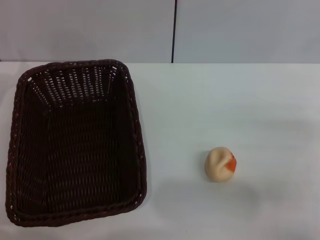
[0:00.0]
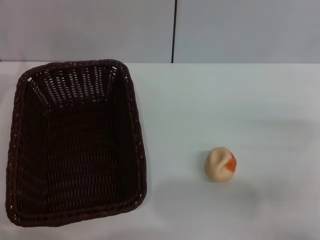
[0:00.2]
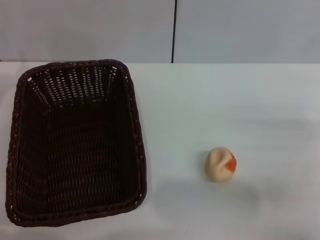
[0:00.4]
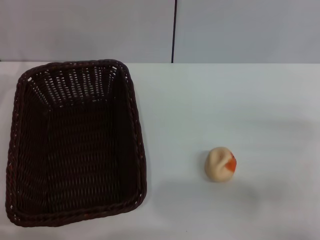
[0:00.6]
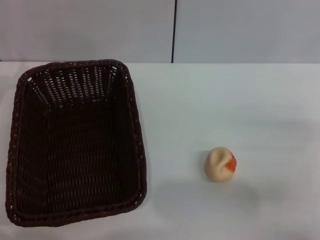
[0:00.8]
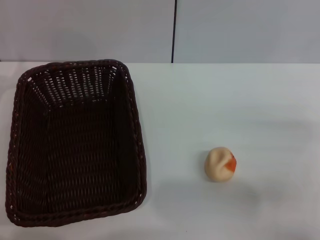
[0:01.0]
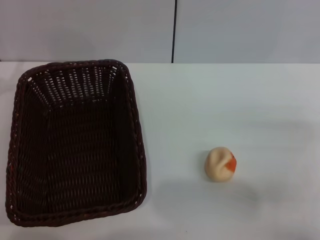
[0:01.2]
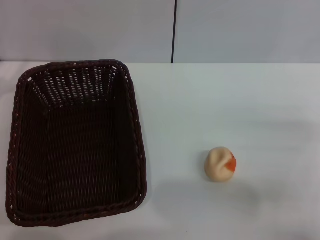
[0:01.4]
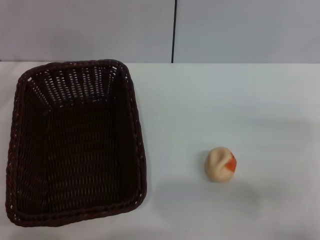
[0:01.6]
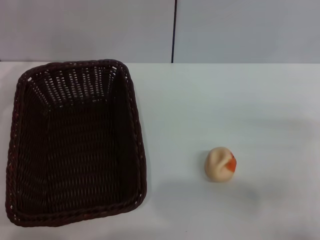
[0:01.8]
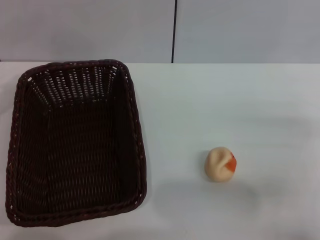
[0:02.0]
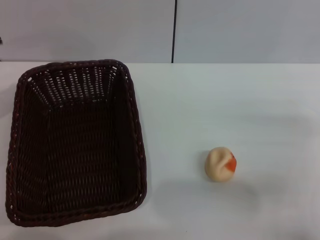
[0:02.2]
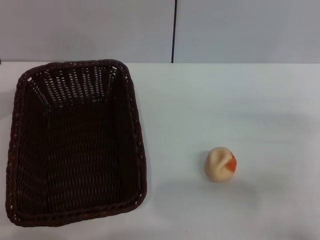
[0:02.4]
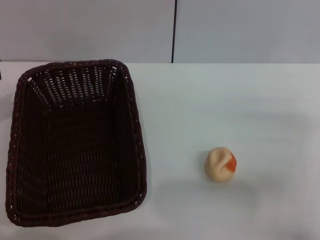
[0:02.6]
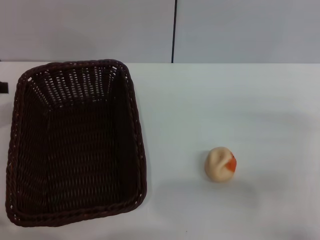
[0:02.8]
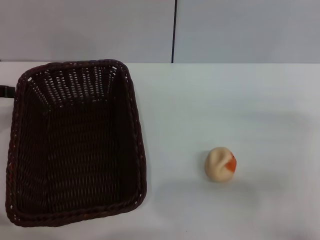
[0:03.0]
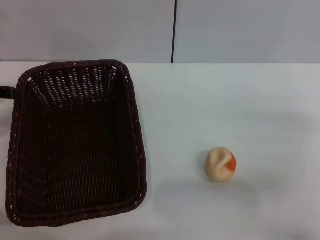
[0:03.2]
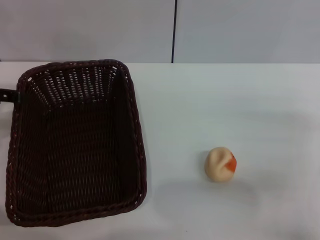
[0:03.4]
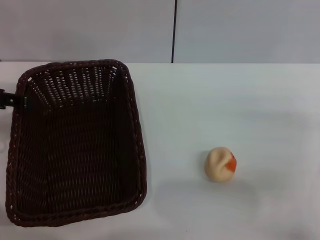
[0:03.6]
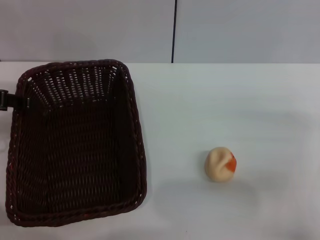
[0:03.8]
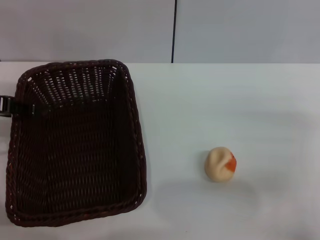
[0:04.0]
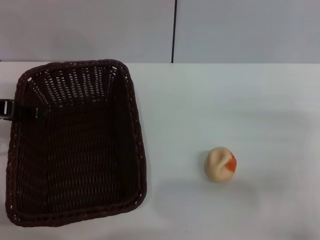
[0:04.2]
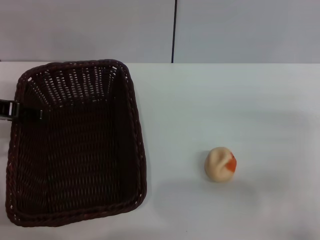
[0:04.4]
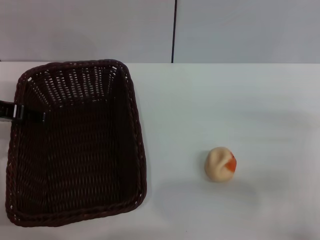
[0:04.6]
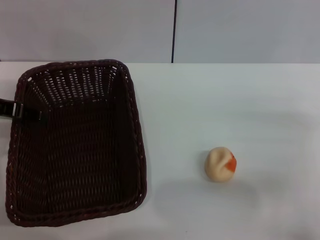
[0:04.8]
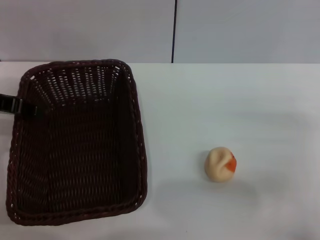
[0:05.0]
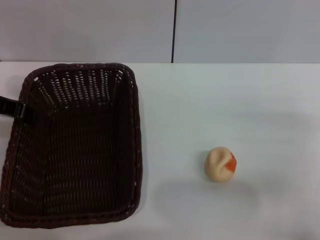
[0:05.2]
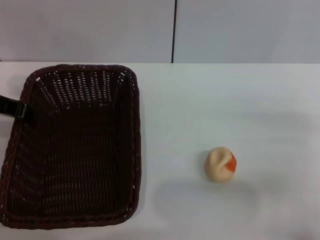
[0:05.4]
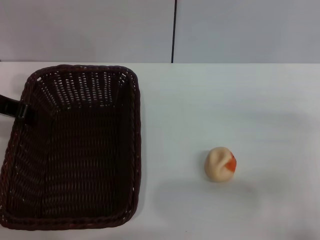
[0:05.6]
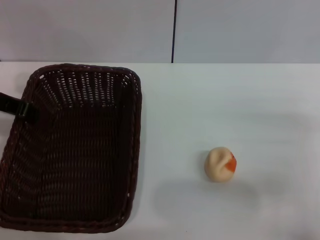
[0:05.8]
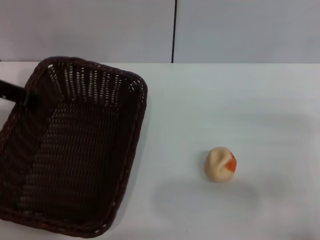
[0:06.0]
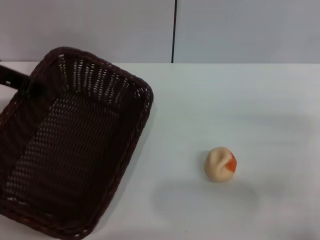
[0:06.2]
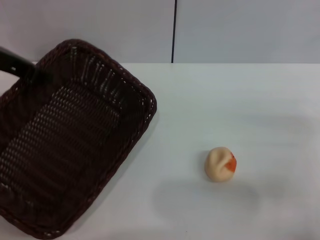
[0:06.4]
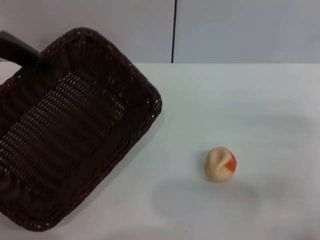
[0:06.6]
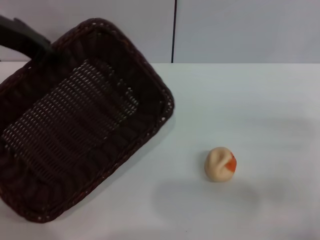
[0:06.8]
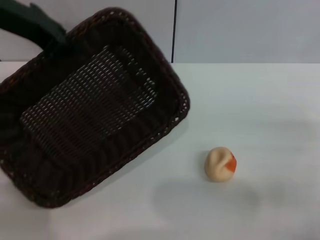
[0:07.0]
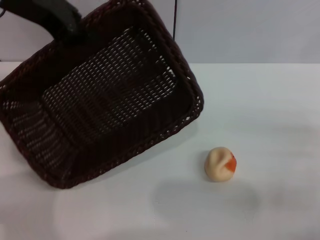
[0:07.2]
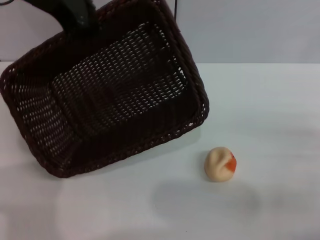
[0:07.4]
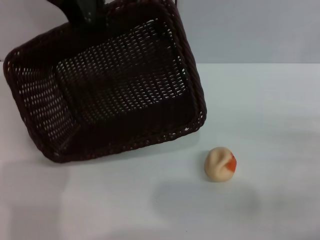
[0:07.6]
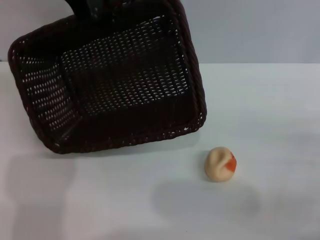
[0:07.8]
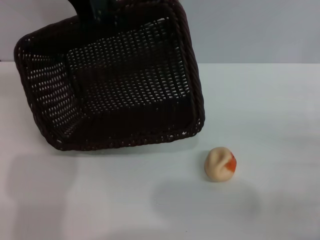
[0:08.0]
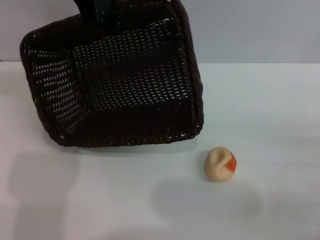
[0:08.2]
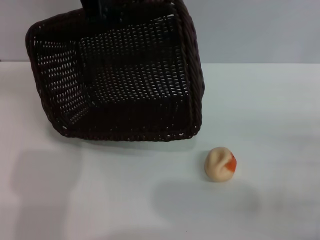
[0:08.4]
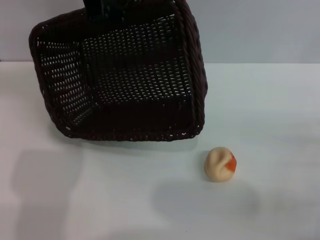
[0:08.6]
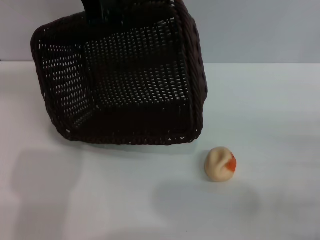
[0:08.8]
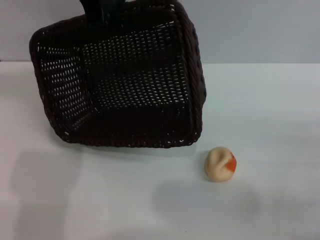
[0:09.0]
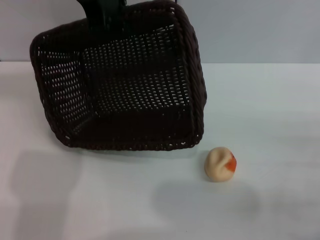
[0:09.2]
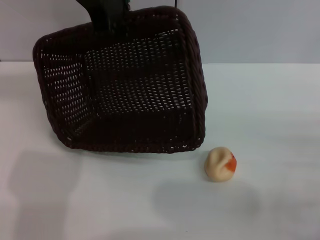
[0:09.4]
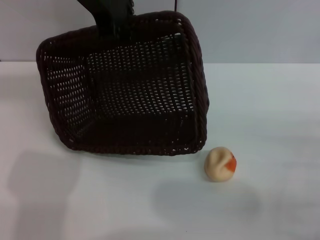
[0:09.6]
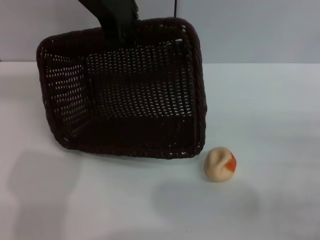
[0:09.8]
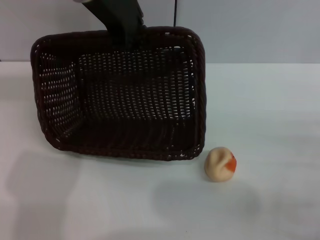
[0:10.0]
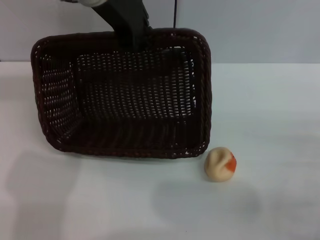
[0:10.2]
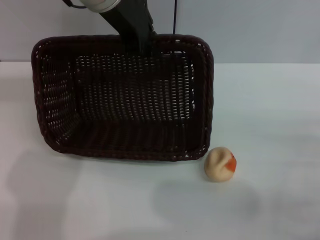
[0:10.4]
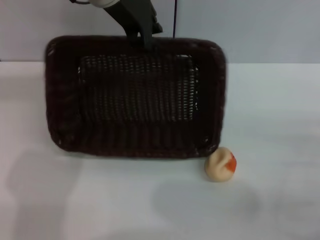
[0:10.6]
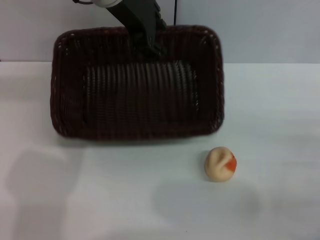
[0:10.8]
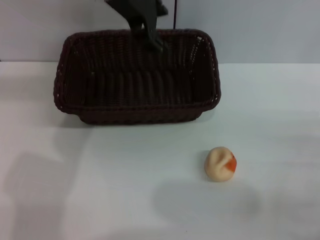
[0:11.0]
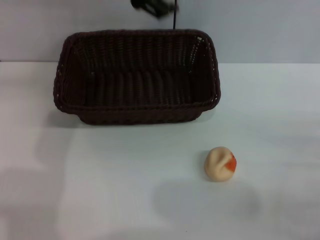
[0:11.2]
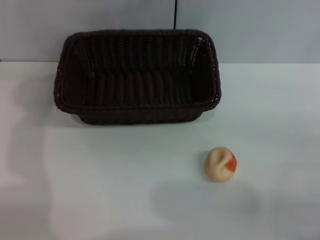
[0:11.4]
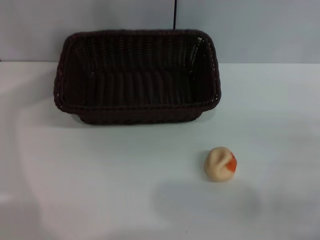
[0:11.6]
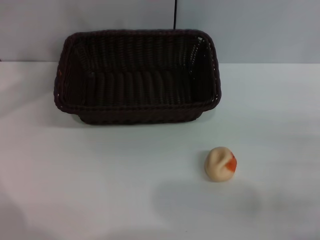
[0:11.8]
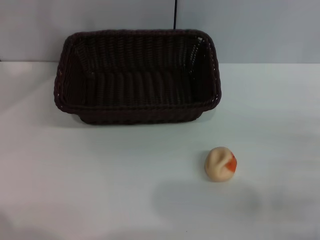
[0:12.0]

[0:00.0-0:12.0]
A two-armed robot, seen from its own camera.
Step, 0:00.0 to 0:11.0: Move the basket to the center of view with the left gripper.
0:03.0 to 0:04.4: The left gripper changes place by approximately 5 cm.
0:04.4 to 0:06.0: The left gripper closes.
0:06.0 to 0:07.6: The left gripper is displaced upward, to the right and forward by approximately 15 cm.
0:07.6 to 0:09.0: There are only small adjustments of the grippers.
0:09.0 to 0:10.4: The left gripper moves approximately 5 cm.
0:10.4 to 0:12.0: The left gripper shifts roughly 25 cm to the left, and opens up.

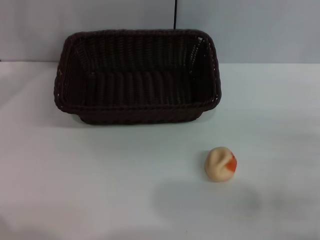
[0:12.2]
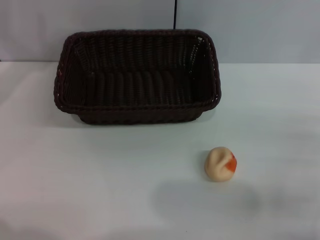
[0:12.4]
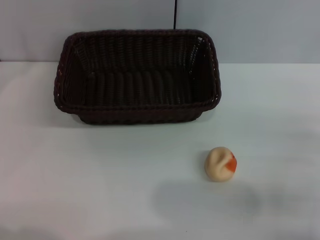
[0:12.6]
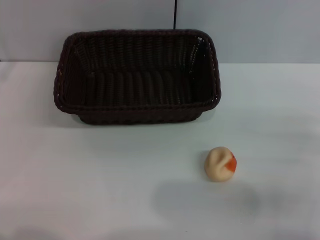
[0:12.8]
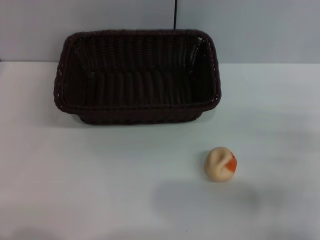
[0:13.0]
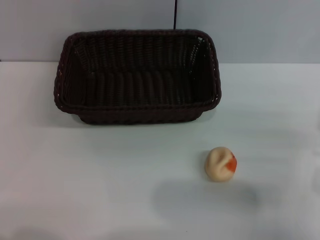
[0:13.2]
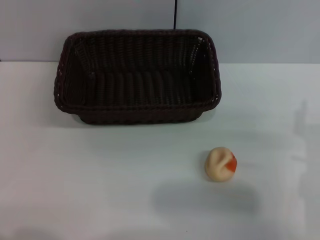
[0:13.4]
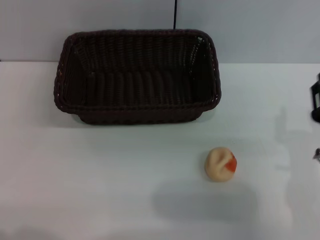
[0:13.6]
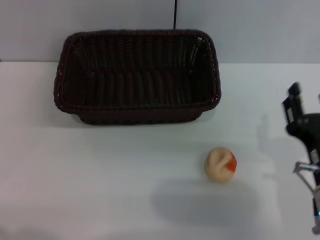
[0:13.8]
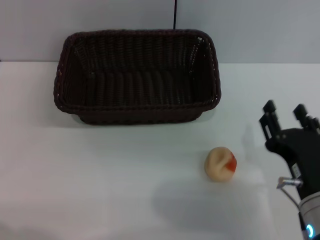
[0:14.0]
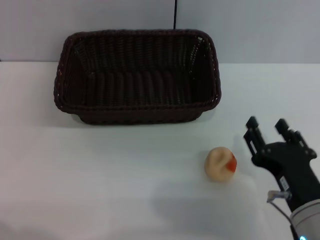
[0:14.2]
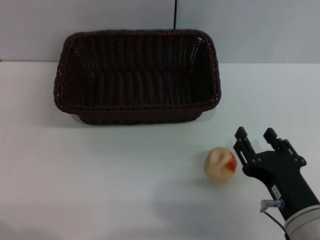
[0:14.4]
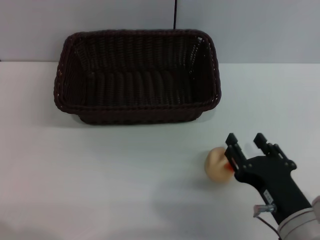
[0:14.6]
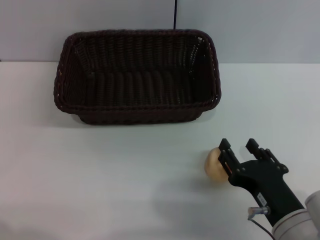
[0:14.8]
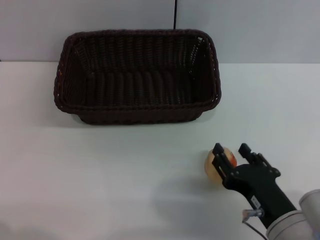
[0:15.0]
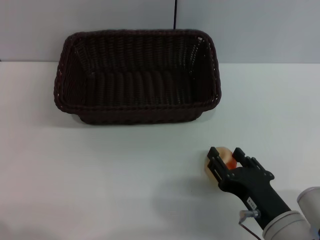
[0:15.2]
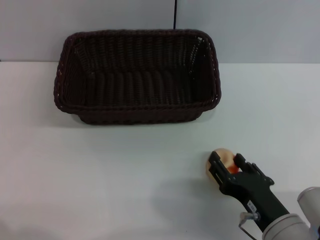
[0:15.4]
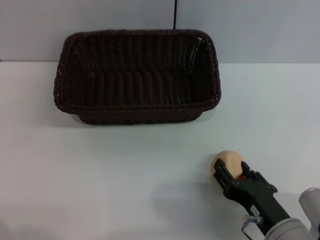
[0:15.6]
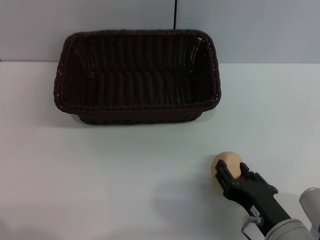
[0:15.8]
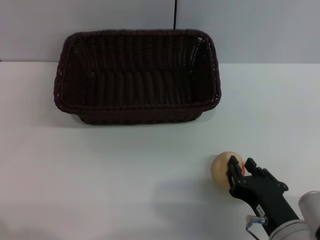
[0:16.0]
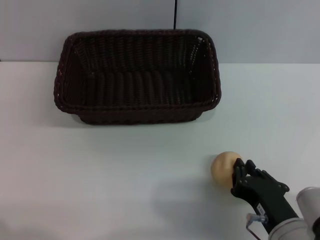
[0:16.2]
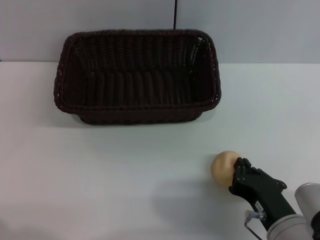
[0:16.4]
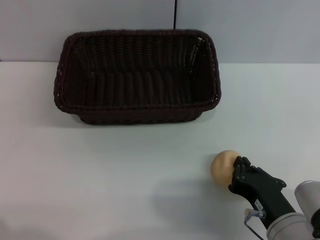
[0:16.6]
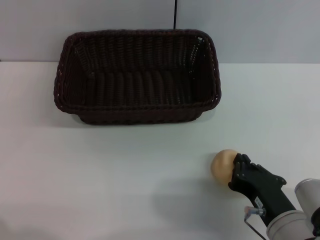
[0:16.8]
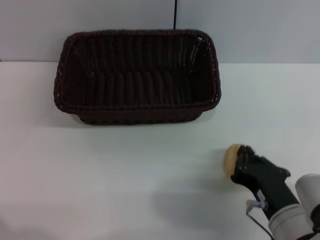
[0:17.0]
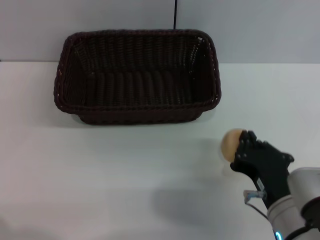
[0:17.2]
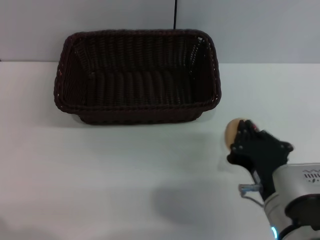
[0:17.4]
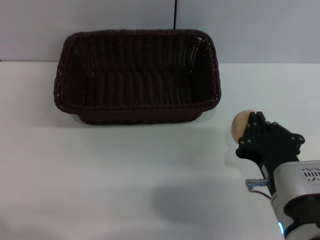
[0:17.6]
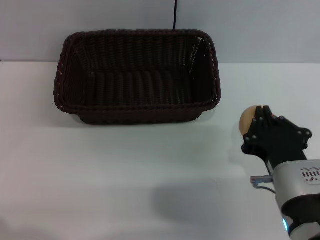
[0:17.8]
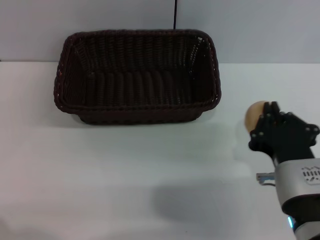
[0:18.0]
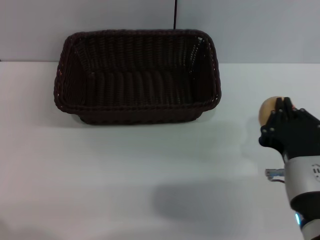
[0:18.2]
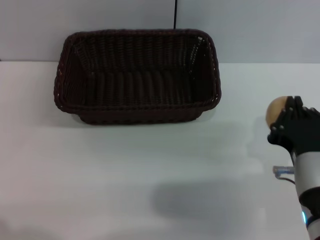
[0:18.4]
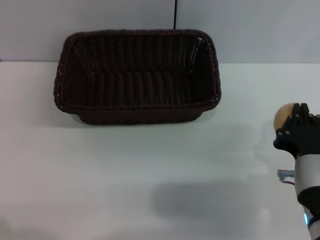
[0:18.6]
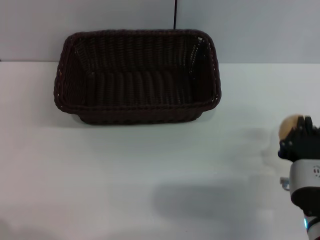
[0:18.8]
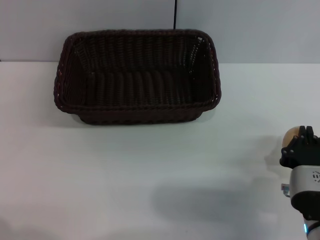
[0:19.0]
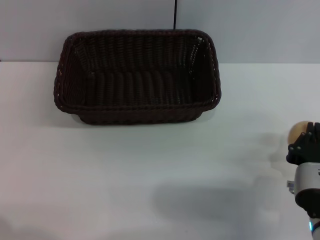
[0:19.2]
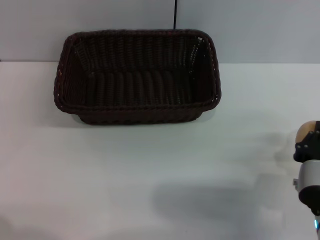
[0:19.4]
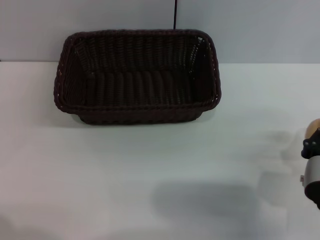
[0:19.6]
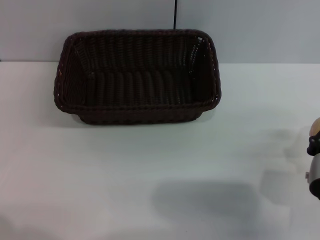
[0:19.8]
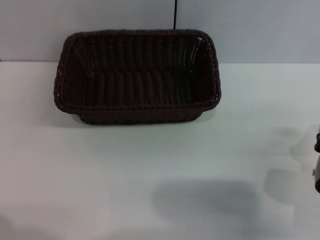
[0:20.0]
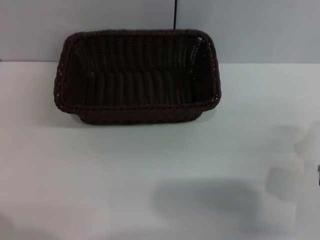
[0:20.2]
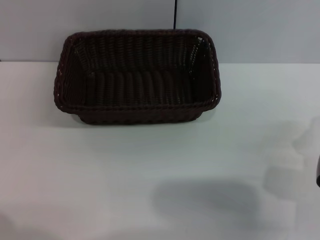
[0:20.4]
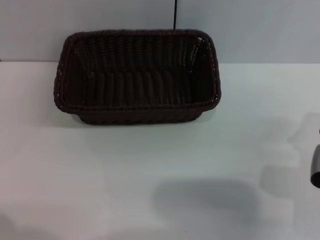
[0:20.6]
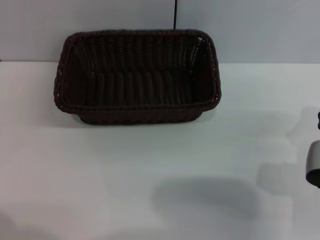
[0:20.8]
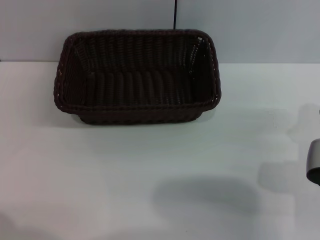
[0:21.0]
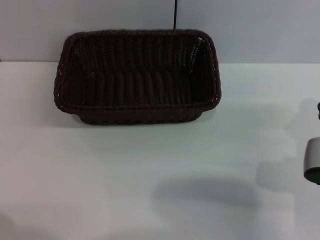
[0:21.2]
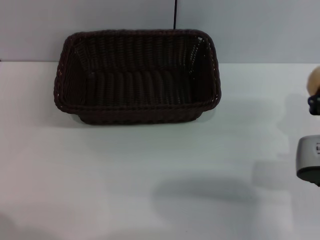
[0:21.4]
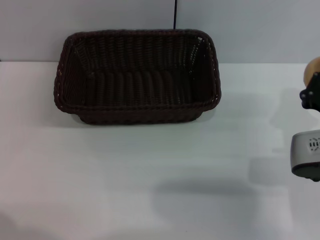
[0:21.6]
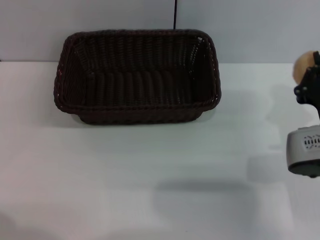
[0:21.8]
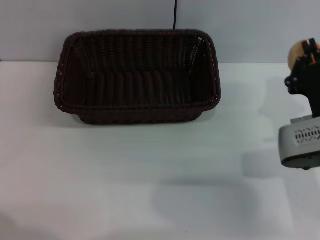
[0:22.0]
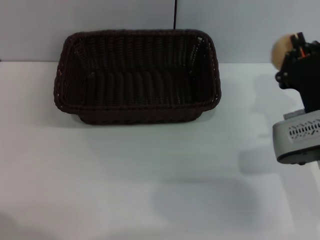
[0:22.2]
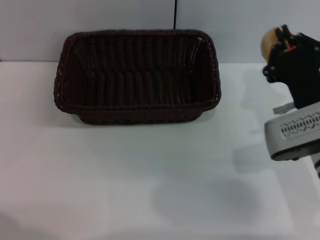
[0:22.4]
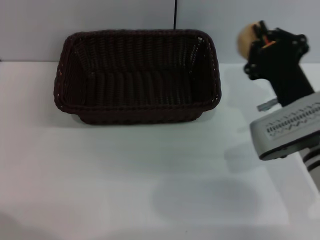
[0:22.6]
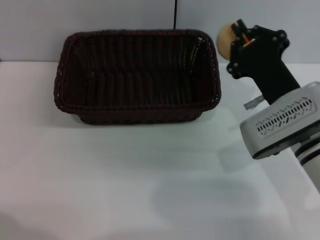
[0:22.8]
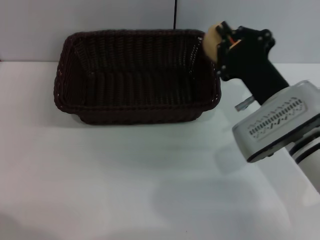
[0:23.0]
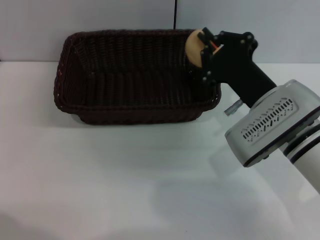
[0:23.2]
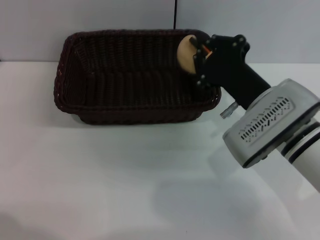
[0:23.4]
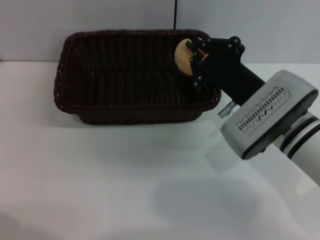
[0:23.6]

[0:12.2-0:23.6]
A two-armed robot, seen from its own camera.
Step, 0:12.2 to 0:17.8: Pick up the egg yolk pastry with the right gripper.
0:12.2 to 0:13.6: The right gripper moves to the left, approximately 10 cm.
0:13.6 to 0:15.0: The right gripper changes place by approximately 5 cm.
0:15.0 to 0:16.4: The right gripper closes up.
0:16.4 to 0:17.8: The right gripper moves upward, approximately 5 cm.
0:17.8 to 0:19.4: The right gripper shifts by approximately 5 cm.
0:19.4 to 0:20.8: The grippers move only a little.
0:20.8 to 0:22.2: The right gripper moves forward, approximately 5 cm.
0:22.2 to 0:23.6: The right gripper travels to the left by approximately 5 cm.
